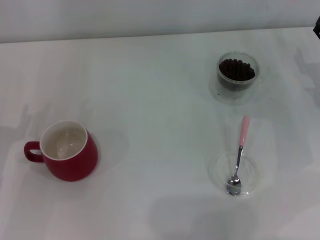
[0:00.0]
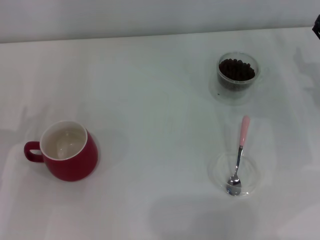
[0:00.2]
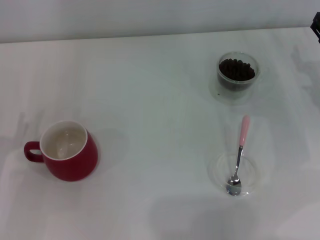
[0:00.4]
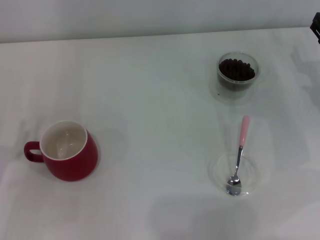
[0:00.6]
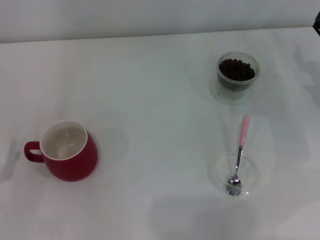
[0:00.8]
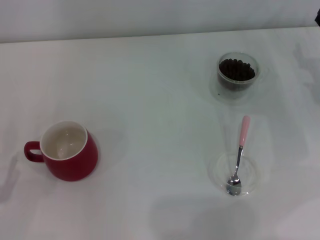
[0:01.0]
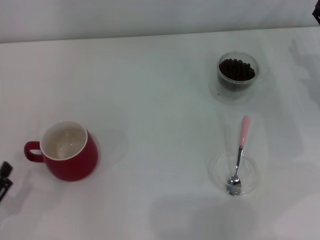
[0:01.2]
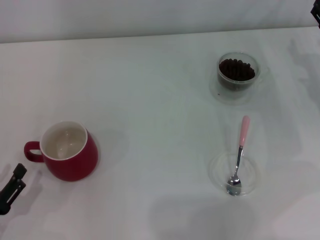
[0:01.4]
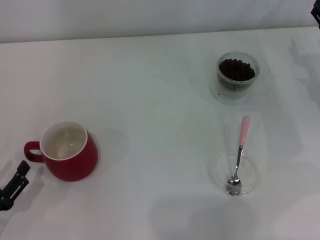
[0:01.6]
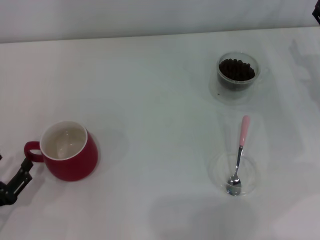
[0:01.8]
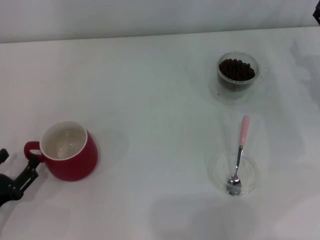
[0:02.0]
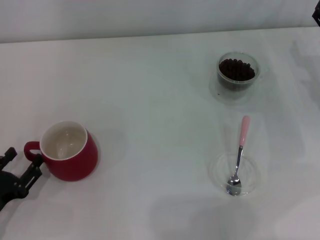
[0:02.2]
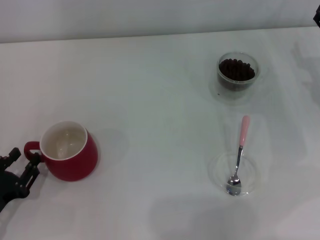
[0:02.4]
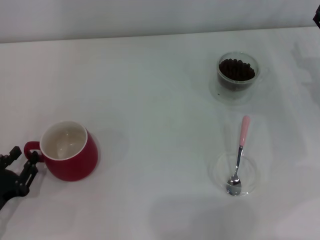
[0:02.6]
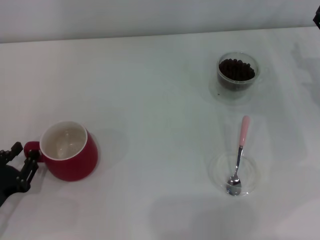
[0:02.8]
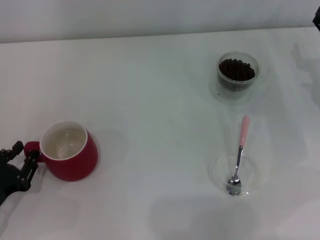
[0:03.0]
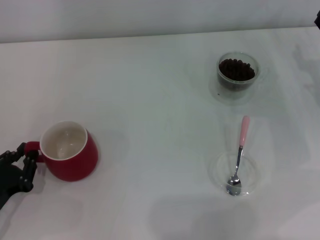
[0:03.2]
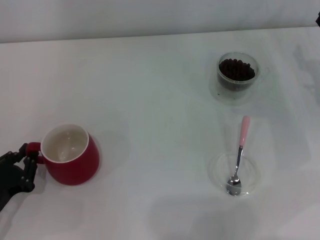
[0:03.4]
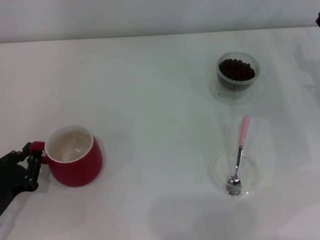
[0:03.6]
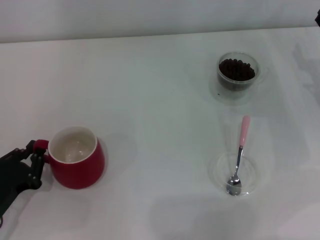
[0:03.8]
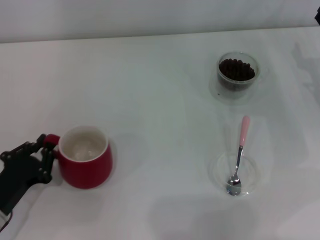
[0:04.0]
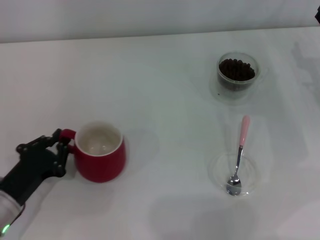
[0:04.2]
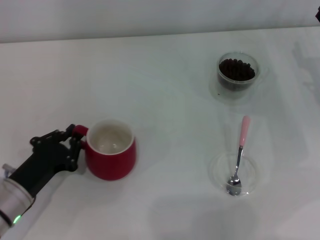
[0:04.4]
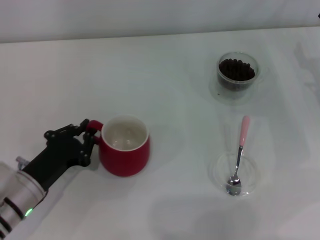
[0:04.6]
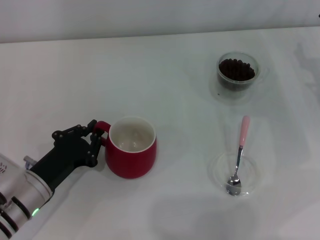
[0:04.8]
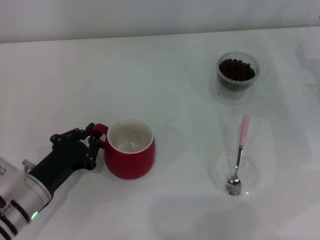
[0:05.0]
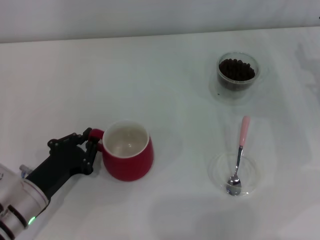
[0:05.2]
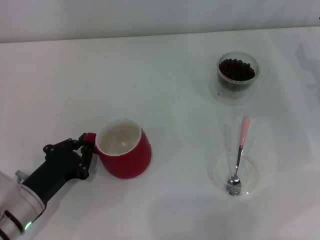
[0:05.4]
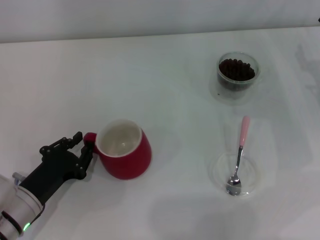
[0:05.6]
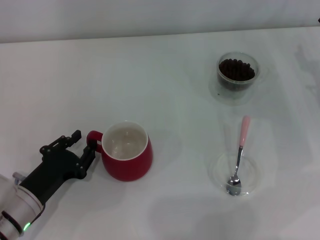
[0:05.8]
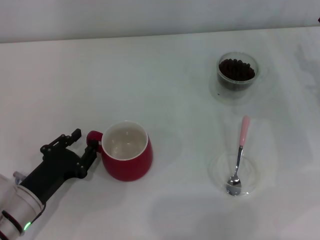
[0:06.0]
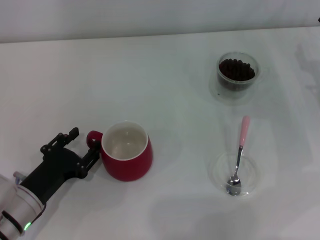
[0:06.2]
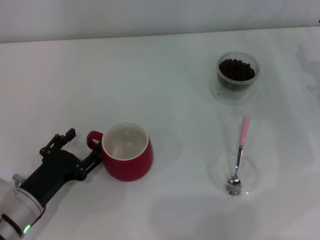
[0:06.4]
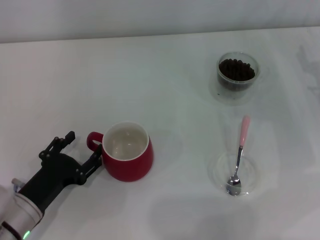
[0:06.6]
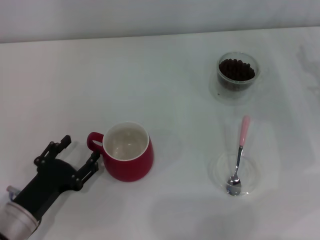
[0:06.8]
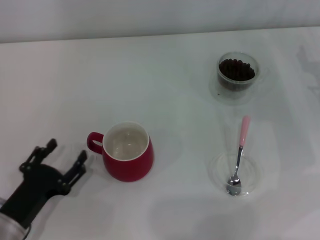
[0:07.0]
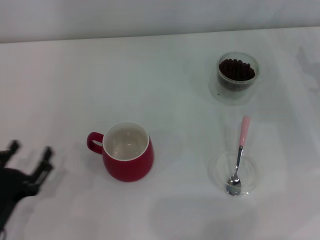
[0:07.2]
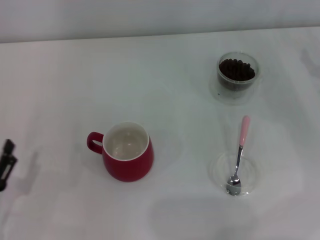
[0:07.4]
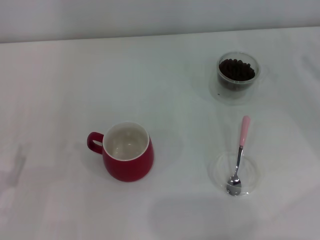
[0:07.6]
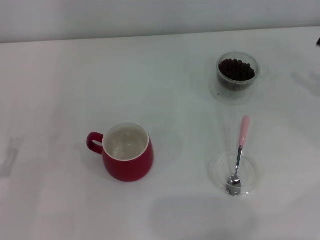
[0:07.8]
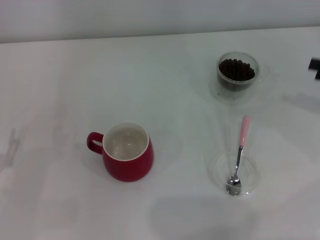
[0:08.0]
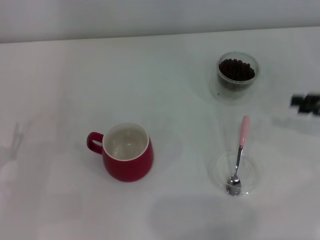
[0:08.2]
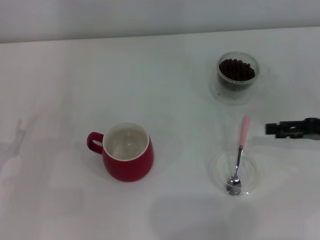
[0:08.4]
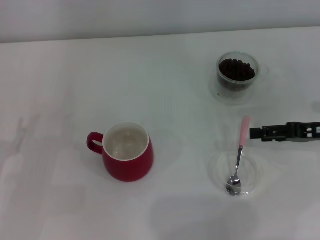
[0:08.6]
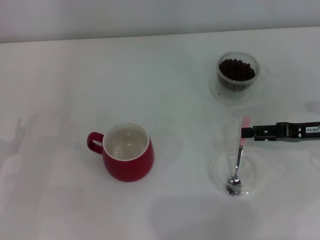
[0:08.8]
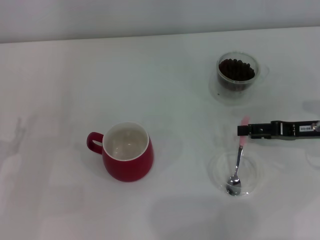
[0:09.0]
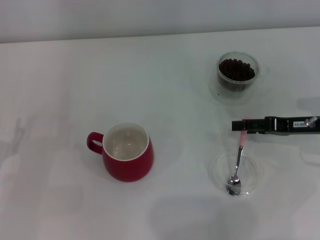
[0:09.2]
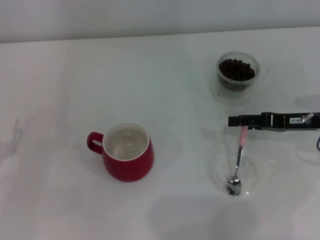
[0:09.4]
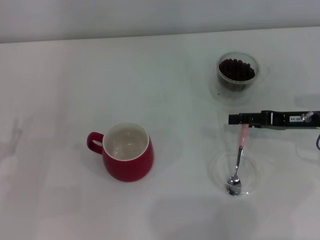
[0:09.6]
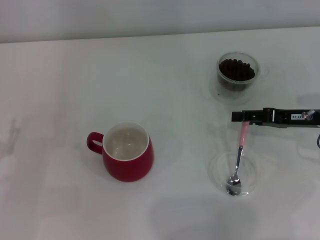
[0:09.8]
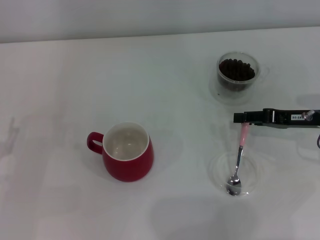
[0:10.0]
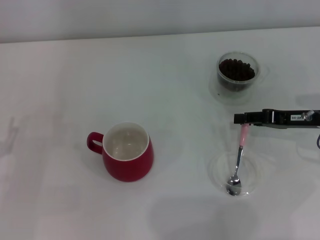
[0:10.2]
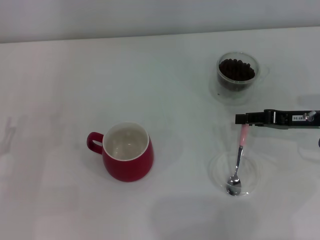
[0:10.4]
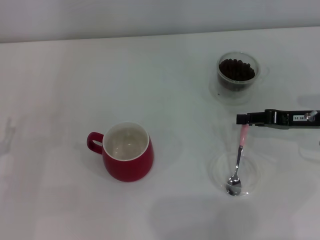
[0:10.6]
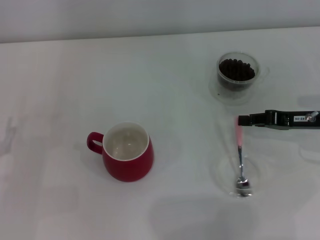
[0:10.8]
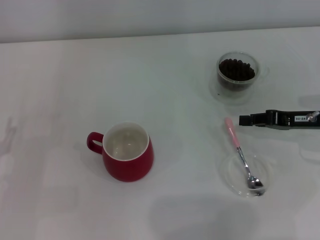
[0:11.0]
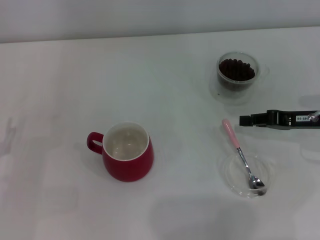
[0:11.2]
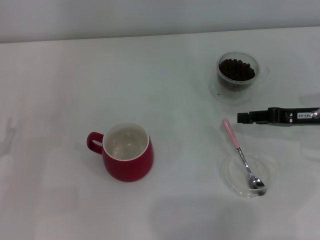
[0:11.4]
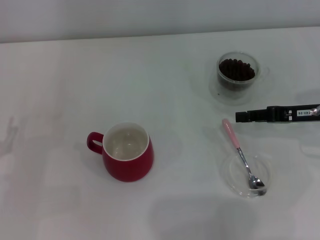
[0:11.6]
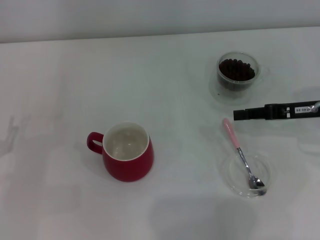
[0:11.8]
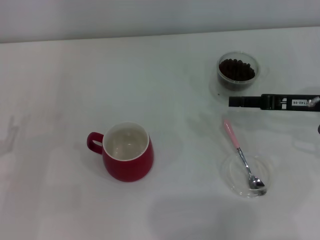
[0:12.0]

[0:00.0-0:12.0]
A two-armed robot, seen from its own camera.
Task of the whole recording: Use a pink spoon to take out the coffee beans from the glass and pour them into the red cup.
Step, 0:00.0 to 0:07.0: Move the cup to the center of view with the left gripper.
0:00.0 to 0:01.6: The left gripper heads backward, covering approximately 10 cm.
0:01.6 to 0:03.0: The left gripper closes its fingers.
0:03.0 to 0:04.4: The left gripper moves to the right, some 5 cm, and closes up.
0:04.4 to 0:06.0: There are only small adjustments of the grippers.
0:06.0 to 0:07.6: The left gripper travels to the left and backward by about 10 cm, and opens its fingers.
0:07.6 to 0:09.0: The right gripper shifts roughly 10 cm to the left.
0:09.0 to 0:10.4: The right gripper closes up.
0:10.4 to 0:12.0: The grippers stay close to where they were, moving slightly.

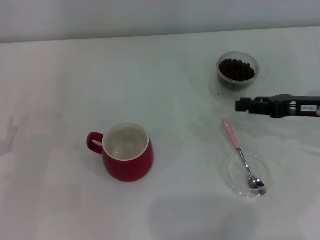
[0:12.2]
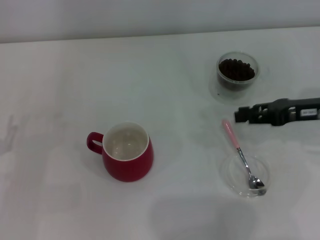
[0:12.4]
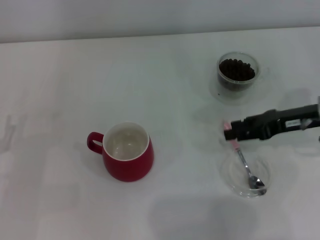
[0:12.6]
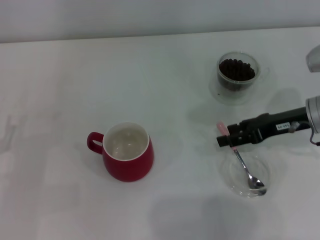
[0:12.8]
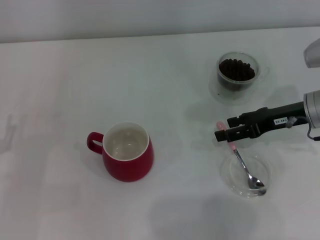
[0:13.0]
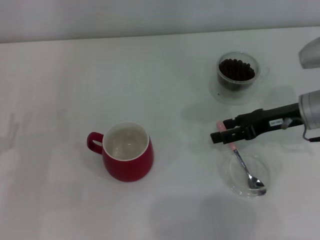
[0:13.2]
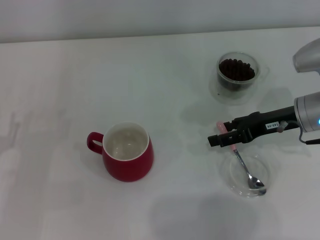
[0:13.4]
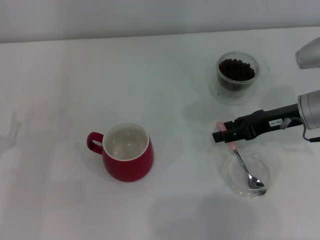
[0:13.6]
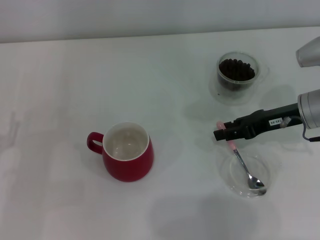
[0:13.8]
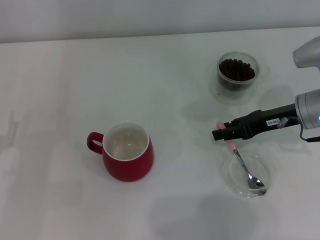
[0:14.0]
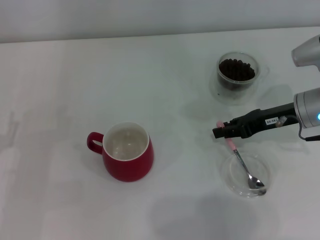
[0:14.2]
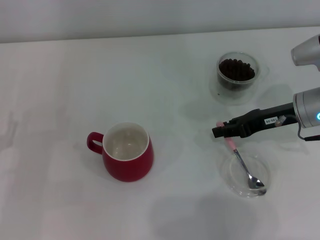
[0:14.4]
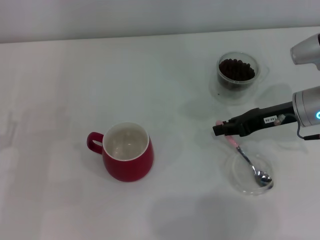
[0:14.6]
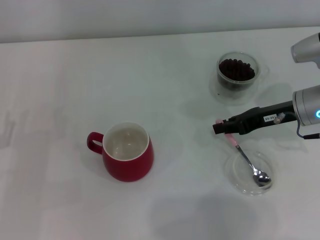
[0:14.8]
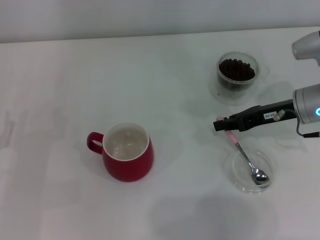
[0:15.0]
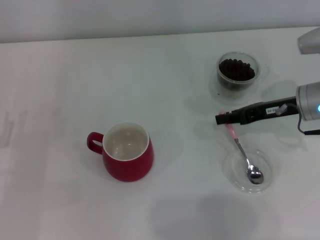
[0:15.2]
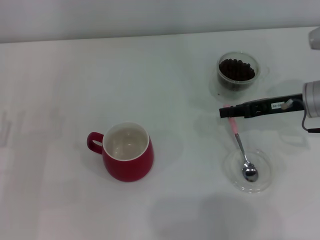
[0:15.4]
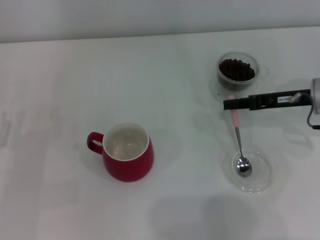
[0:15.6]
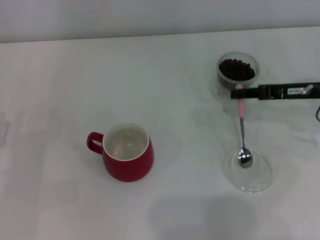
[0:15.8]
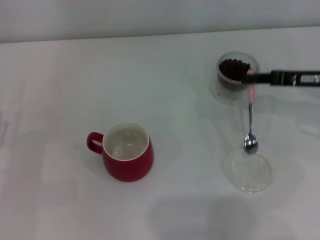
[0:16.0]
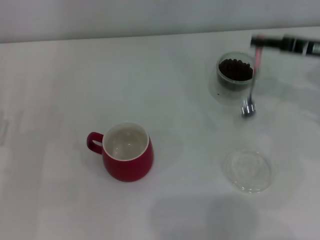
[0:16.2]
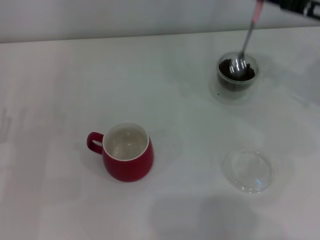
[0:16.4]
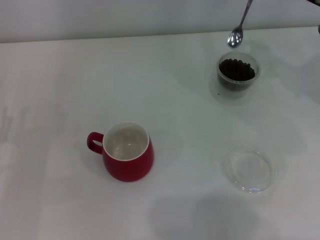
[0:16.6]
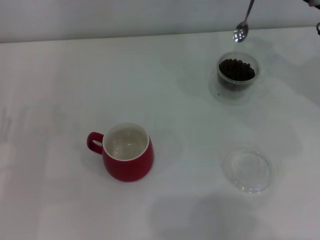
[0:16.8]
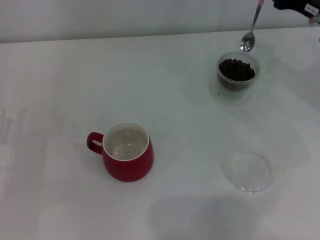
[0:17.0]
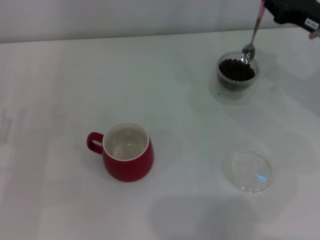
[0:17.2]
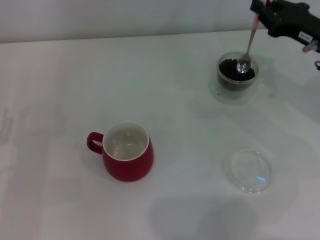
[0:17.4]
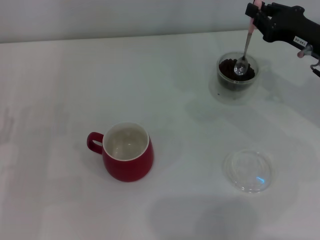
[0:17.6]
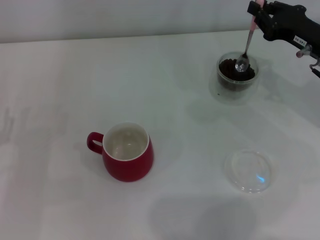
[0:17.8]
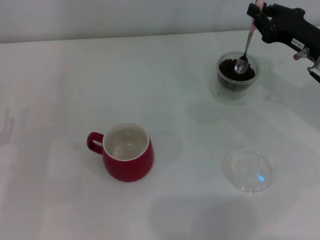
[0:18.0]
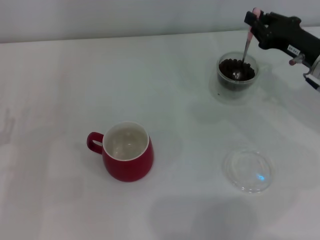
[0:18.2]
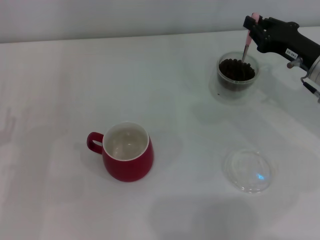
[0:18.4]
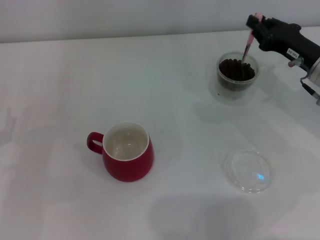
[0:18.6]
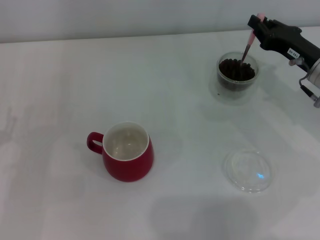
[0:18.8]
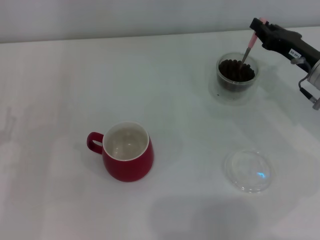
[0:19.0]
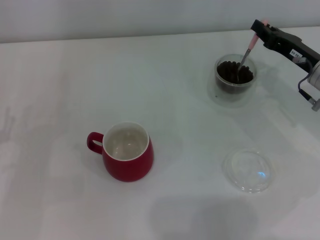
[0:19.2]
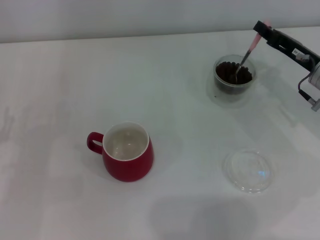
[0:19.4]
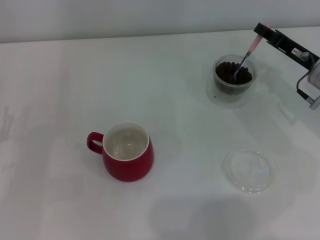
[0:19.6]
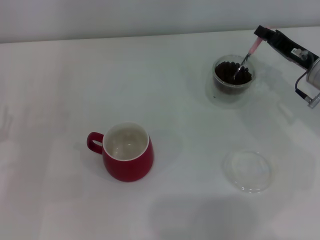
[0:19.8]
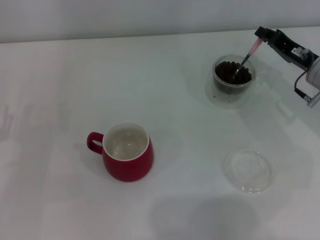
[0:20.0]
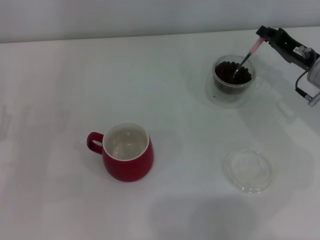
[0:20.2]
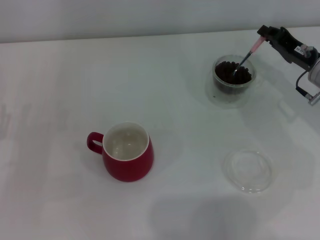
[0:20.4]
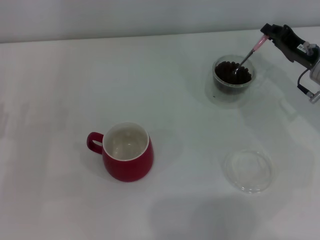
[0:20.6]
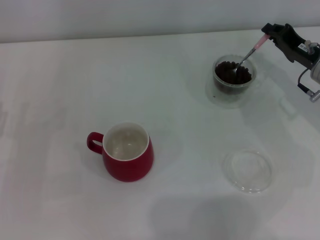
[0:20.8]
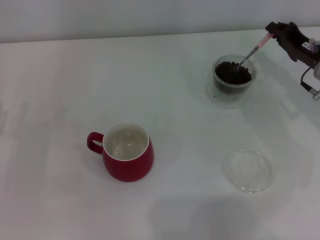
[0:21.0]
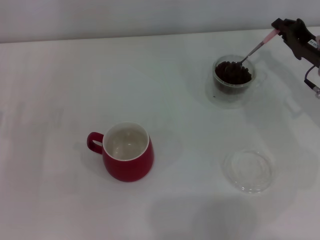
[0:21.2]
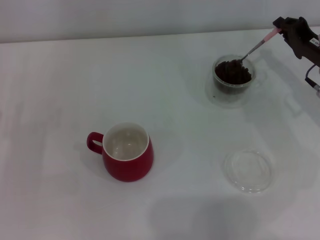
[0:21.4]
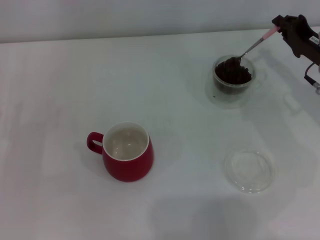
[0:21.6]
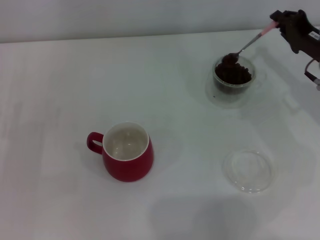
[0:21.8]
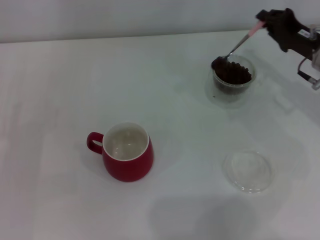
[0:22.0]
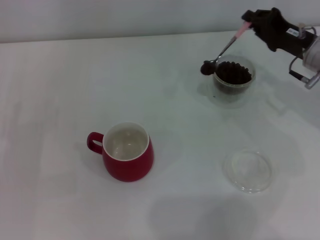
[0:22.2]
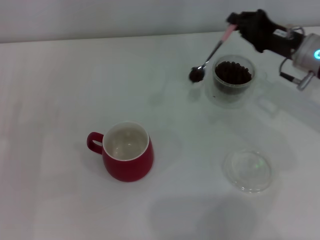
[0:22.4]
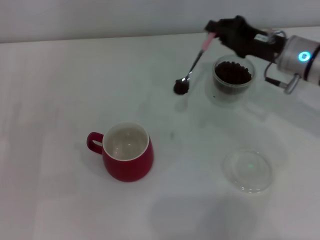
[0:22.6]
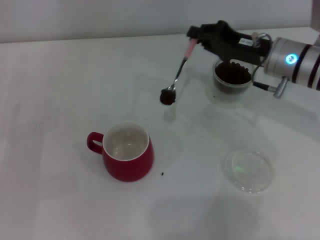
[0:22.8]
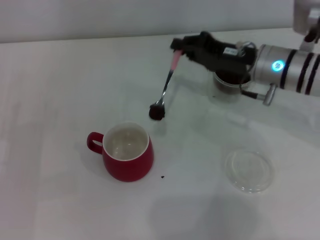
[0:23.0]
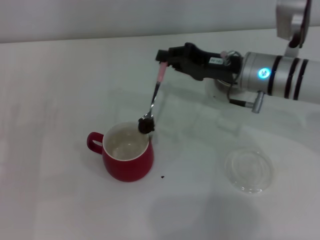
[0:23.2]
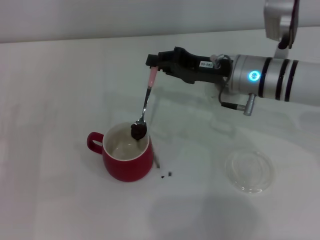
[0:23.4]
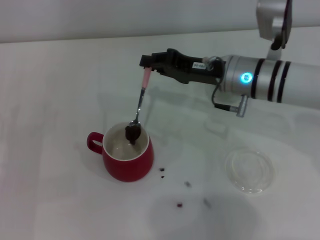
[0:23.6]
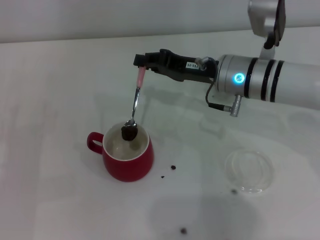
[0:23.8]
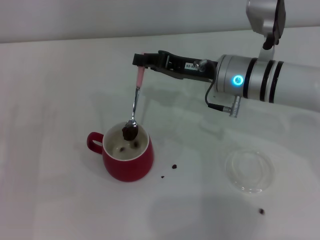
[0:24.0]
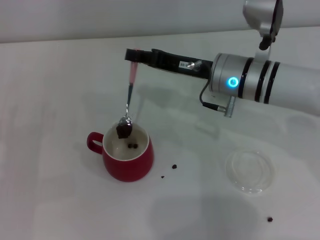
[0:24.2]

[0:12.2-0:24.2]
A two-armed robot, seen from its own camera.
Task of the whole recording: Use a pink spoon to take out the coffee beans from the glass and pour them into the red cup.
Step, 0:12.2 to 0:16.0: Pick up the spoon with the right gripper.
0:12.2 to 0:13.8: The right gripper shifts by approximately 5 cm, and opens its fingers.
0:13.8 to 0:15.2: The right gripper closes.
0:15.2 to 0:16.6: The right gripper moves upward, roughly 10 cm.
0:16.6 to 0:18.2: The right gripper moves downward, about 5 cm.
0:19.8 to 0:21.2: The grippers move only a little.
0:21.2 to 0:22.6: The right gripper shifts roughly 5 cm to the left.
0:22.6 to 0:24.2: The right gripper heads to the left, covering approximately 10 cm.
